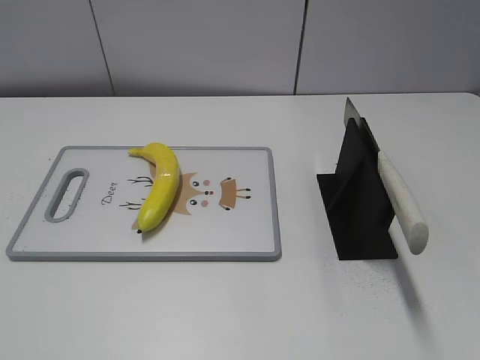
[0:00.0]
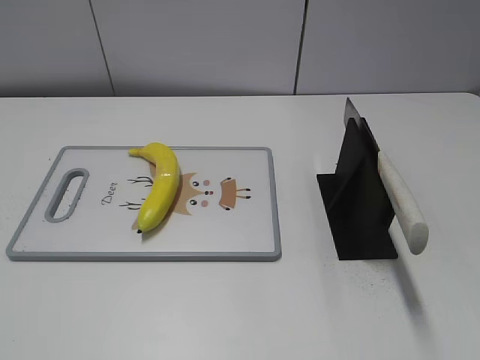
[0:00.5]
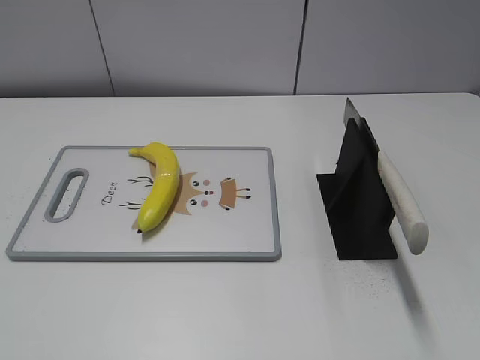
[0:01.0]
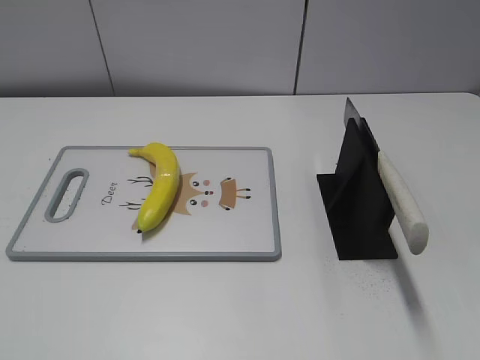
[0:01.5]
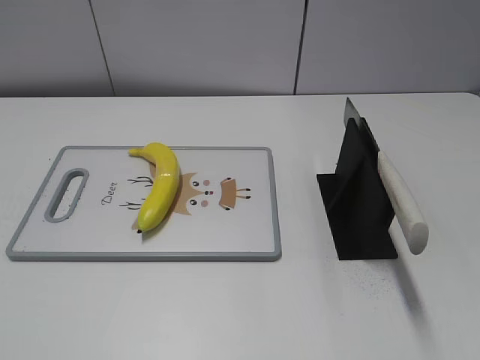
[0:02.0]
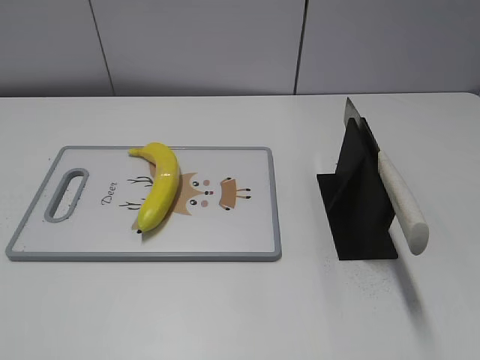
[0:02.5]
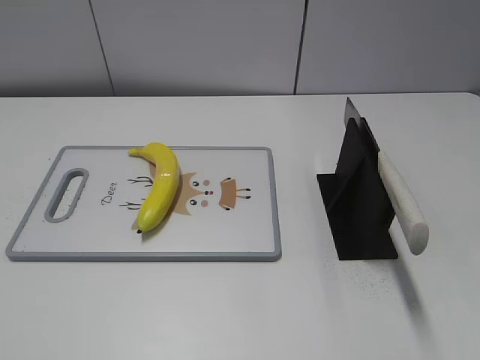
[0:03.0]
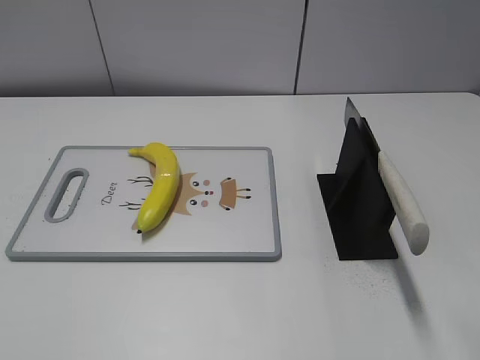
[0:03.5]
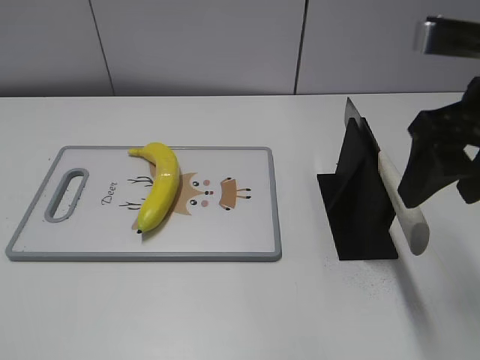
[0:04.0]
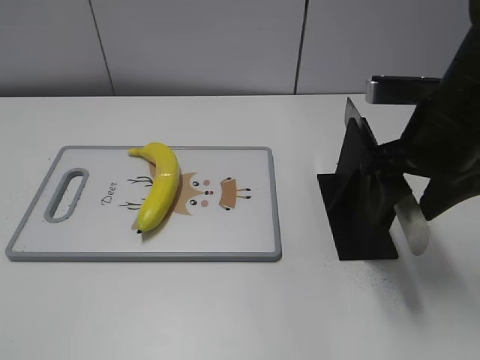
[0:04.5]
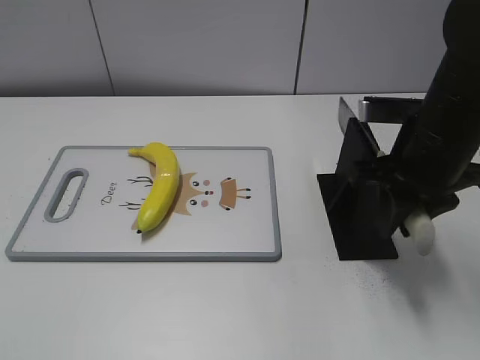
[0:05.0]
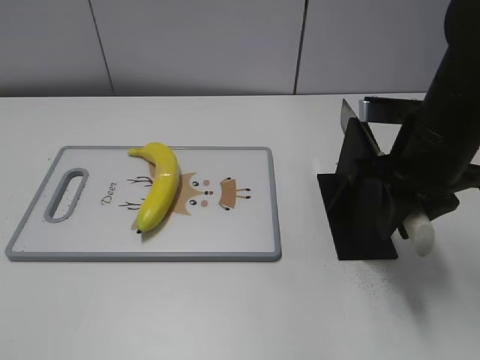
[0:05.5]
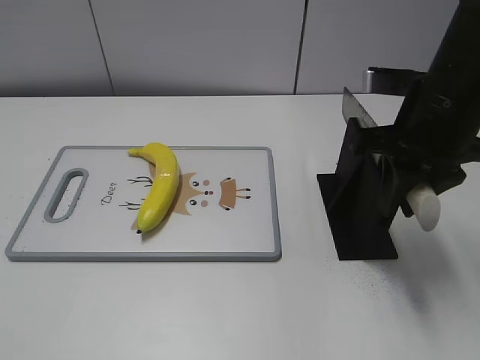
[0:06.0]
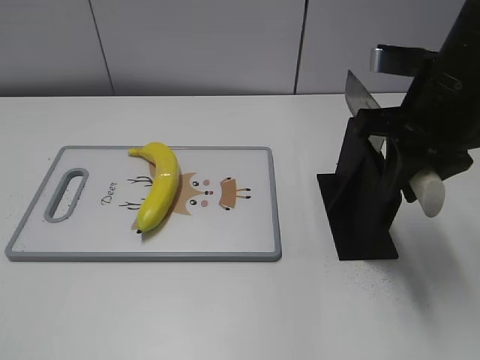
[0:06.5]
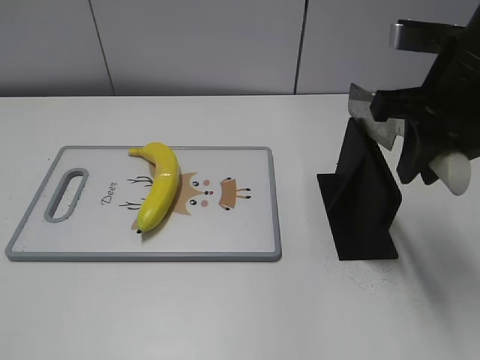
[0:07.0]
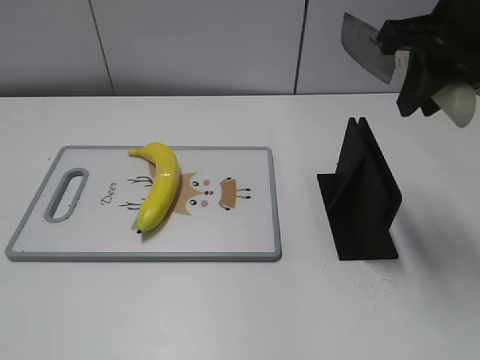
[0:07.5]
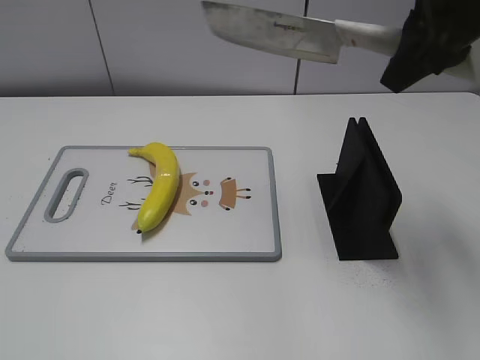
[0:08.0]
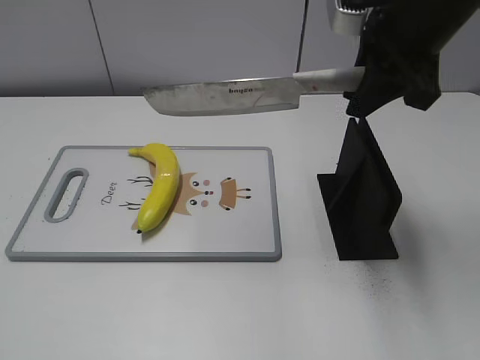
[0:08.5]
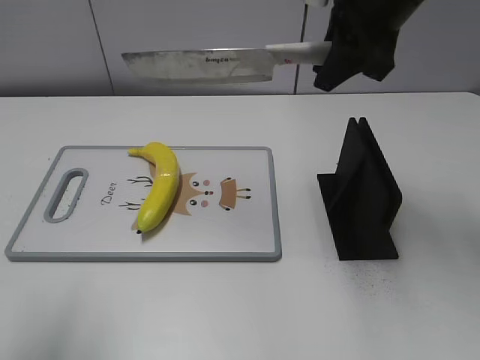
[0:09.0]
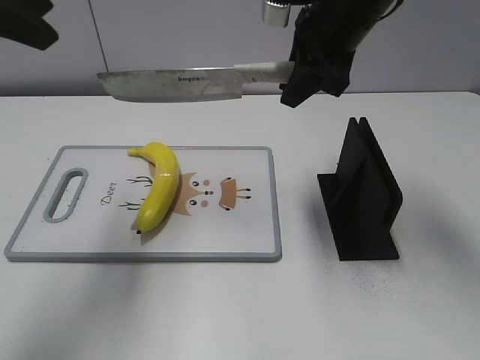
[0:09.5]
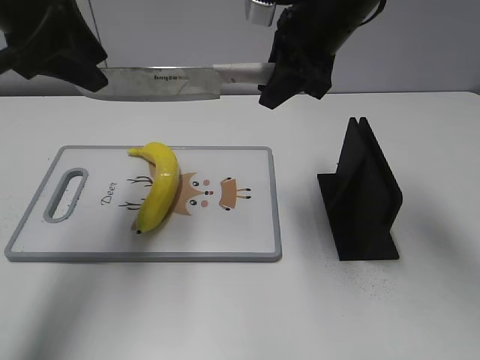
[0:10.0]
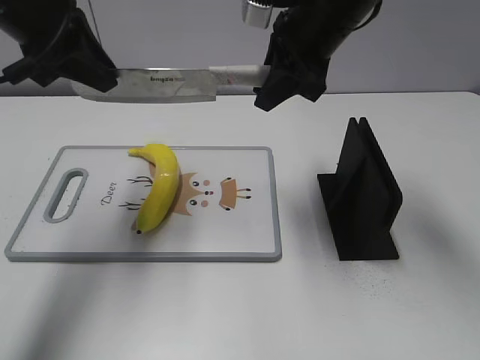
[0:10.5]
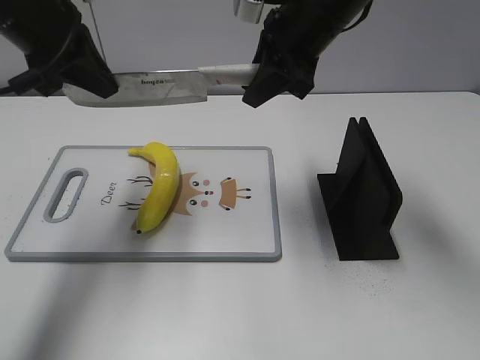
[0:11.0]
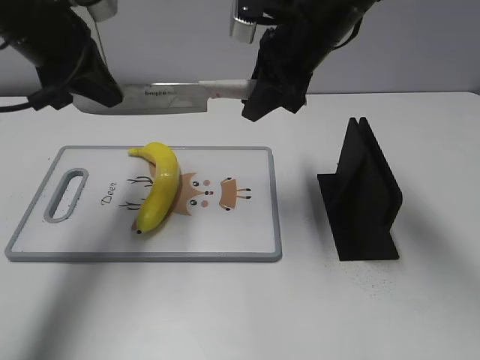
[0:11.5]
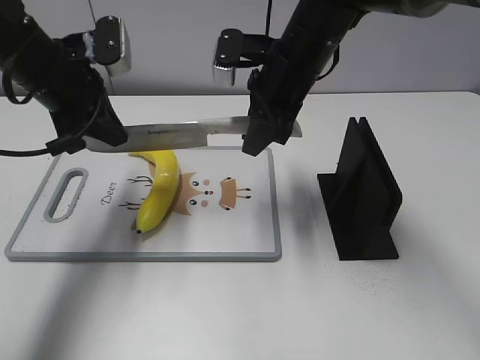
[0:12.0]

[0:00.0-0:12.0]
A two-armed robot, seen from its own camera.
Task of the whole recording: cut plastic banana.
Step, 0:00.0 to 0:06.0: Grab the knife handle with your right hand.
0:02.0 to 0:04.0: The right gripper is displaced forward by roughly 25 cm.
0:04.0 to 0:06.0: The right gripper goes roughly 10 cm downward and forward, and closes.
0:06.0 to 0:08.0: The right gripper goes some 10 cm upward.
0:08.0 to 0:10.0: The left gripper is displaced forward by about 35 cm, while the right gripper is displaced forward, to the left and downward by about 15 cm.
0:10.0 to 0:12.0: Both grippers move downward, roughly 10 cm. The left gripper closes its fingers.

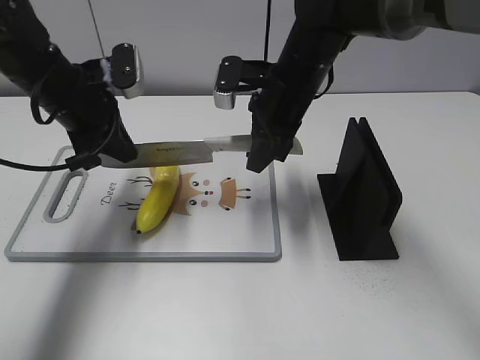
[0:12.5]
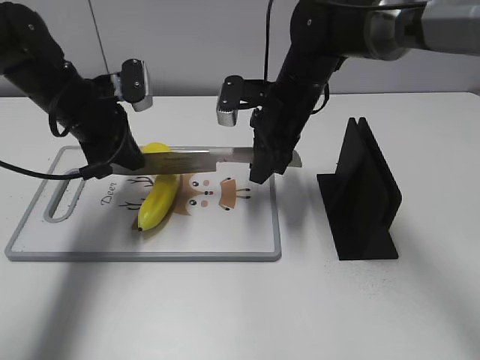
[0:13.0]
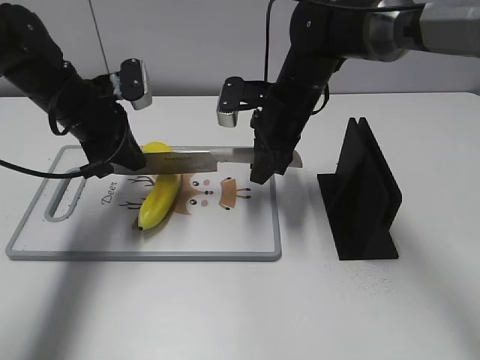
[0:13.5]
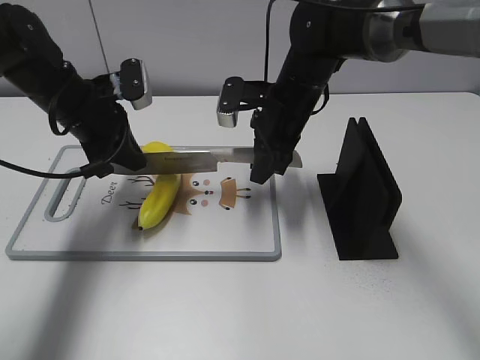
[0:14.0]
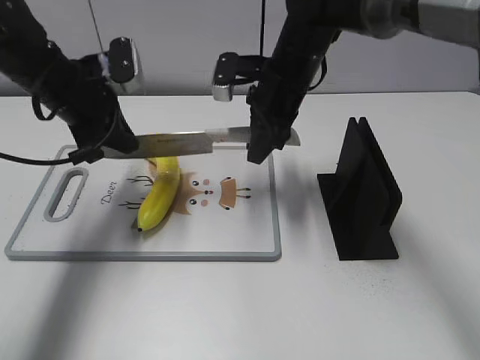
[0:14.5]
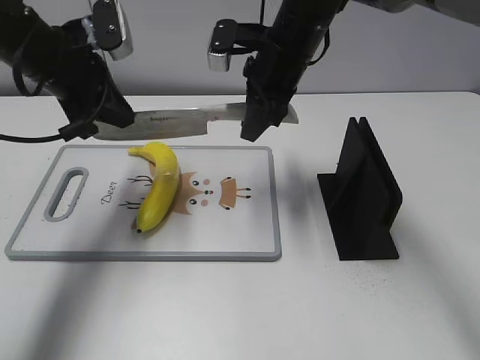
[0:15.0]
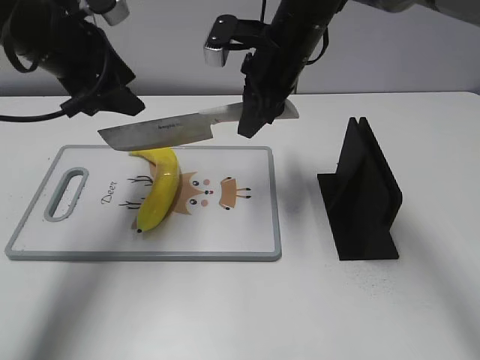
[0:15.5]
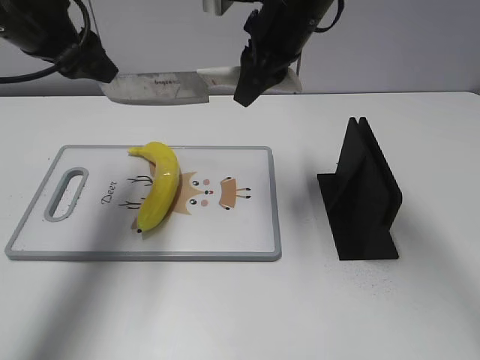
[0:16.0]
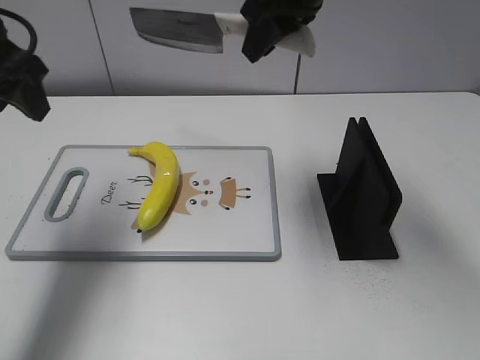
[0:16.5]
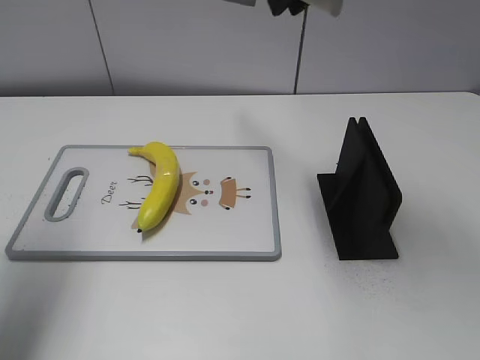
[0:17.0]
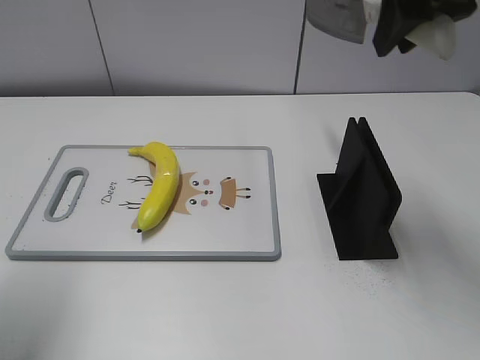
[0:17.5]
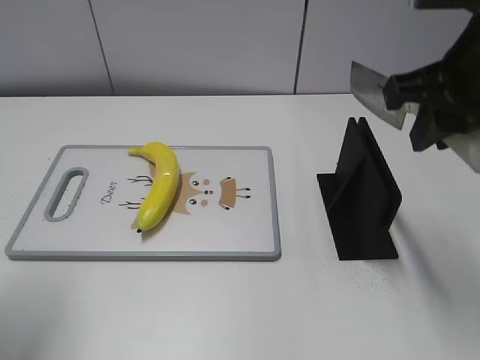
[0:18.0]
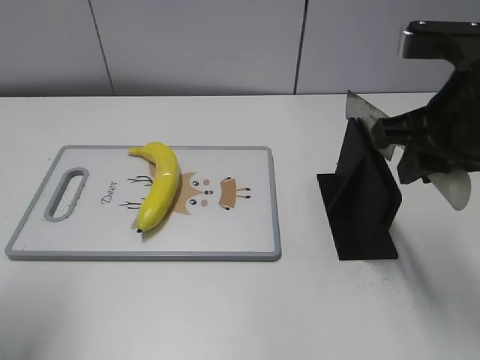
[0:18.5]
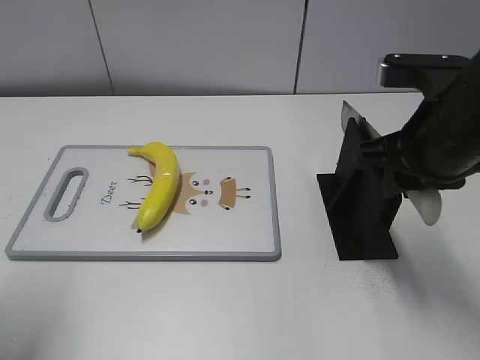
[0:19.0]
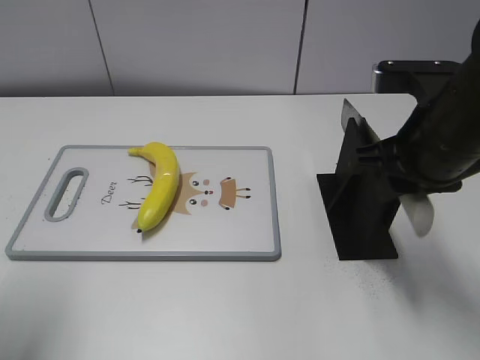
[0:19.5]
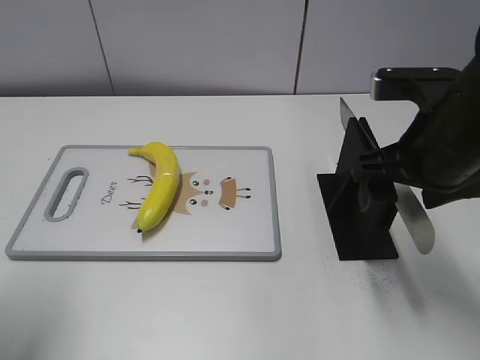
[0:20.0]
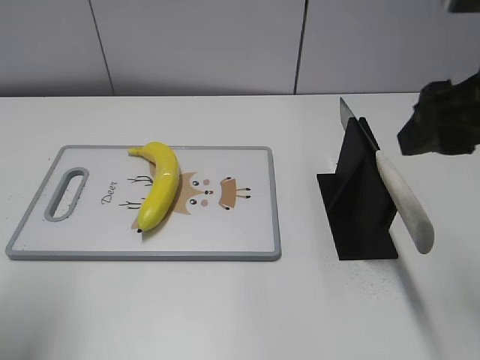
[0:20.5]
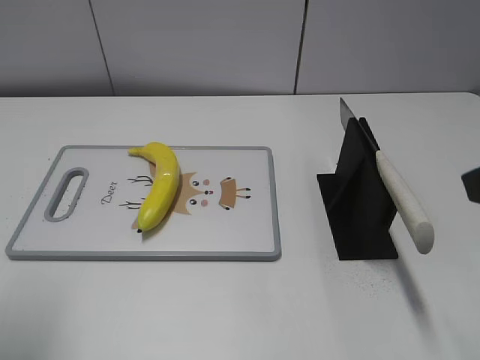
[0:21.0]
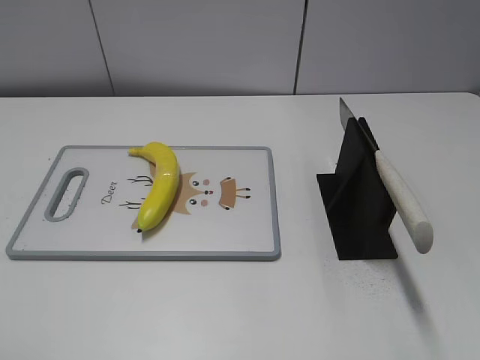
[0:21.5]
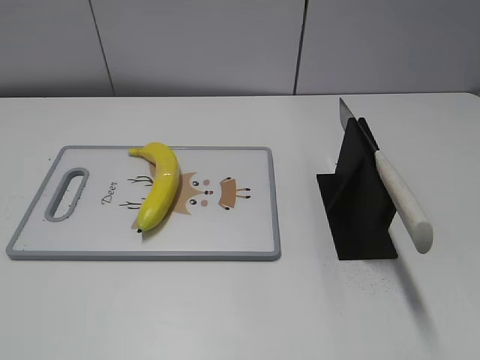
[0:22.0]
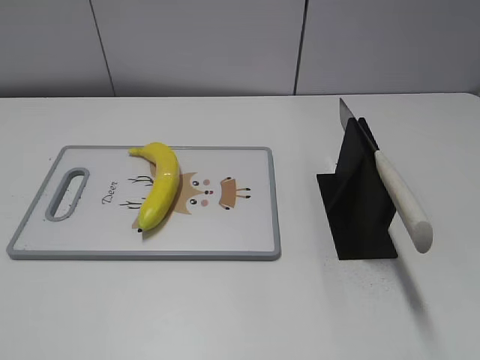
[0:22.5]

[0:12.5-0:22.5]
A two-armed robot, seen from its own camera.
Task of the whole recording: cut plastic banana.
Step, 0:13.5 to 0:16.0: Cut the banana with your right hand.
Step, 0:16.5 to 0:18.5: Lift the knife with your right hand.
0:12.5 to 0:14.5: The grippers stay close to where they were, moving slightly.
0:14.5 to 0:16.5: The left gripper moves upward, backward and to the left, about 15 cm, and opens up. Meanwhile the right gripper goes roughly 15 cm upward.
0:16.5 to 0:18.5: The right gripper heads backward and to the right, covering about 20 cm. The left gripper moves backward, roughly 15 cm.
0:18.5 to 0:20.5: The right gripper ends up roughly 5 cm from where it was, and opens.
0:20.5 to 0:22.5: The right gripper moves backward and to the right, some 20 cm. The left gripper shifts some 20 cm backward.

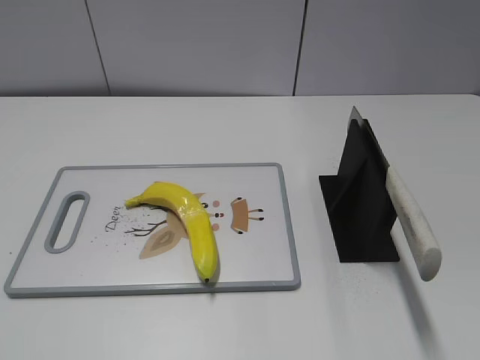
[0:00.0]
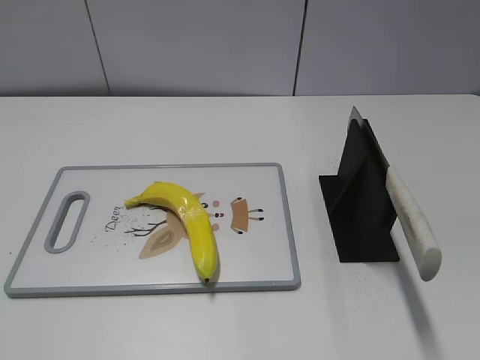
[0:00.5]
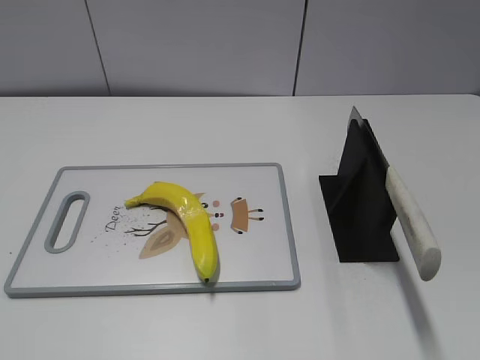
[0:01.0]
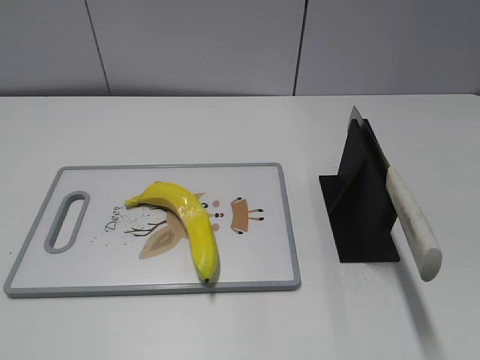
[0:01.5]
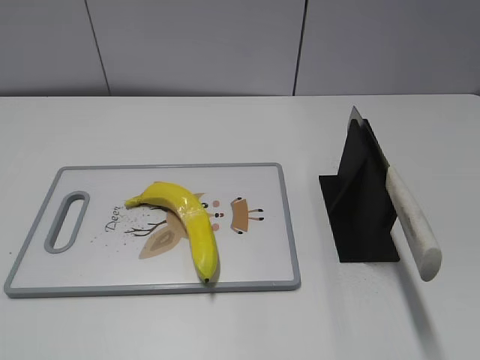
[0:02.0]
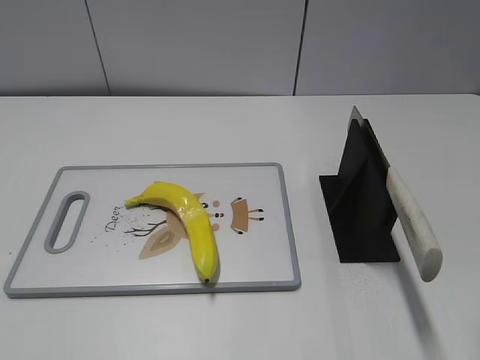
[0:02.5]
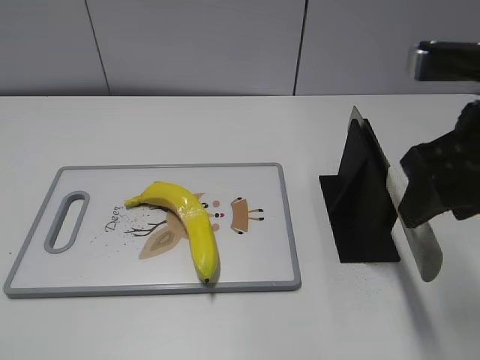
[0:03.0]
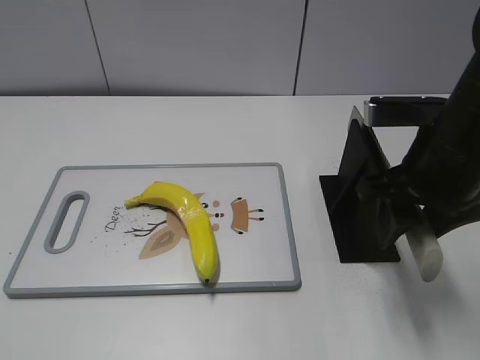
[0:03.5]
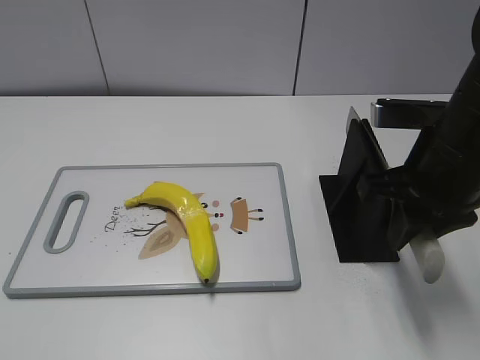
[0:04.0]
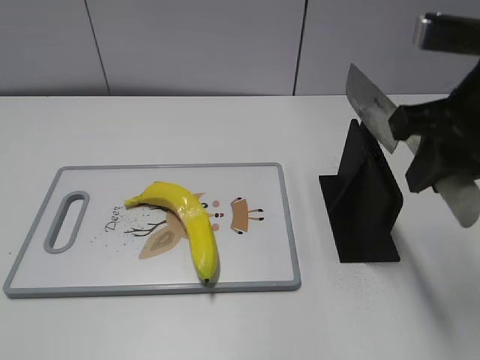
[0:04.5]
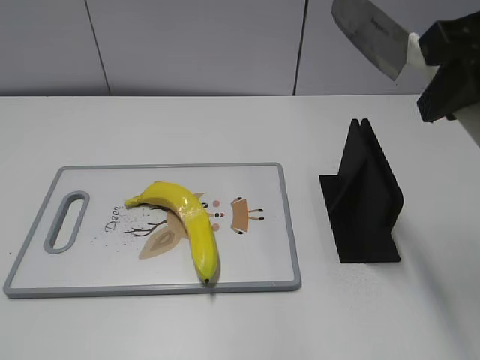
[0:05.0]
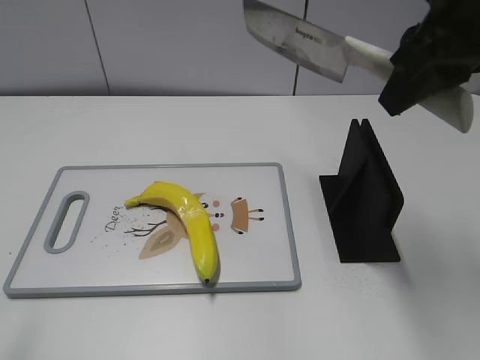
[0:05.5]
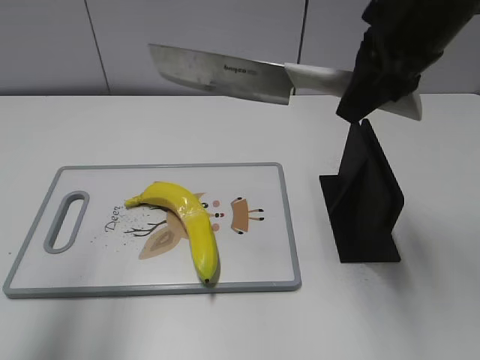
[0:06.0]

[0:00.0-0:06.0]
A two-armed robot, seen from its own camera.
Task of the whole recording: cut plastic banana.
Step, 0:00.0 to 0:04.5: Grab the knife handle with your right hand.
0:02.0 to 0:04.0: The right gripper heads forward, to the left and downward, covering roughly 25 cm, and closes.
0:04.0 to 0:06.0: The left gripper heads forward and upward, covering roughly 20 cm. The right gripper goes roughly 10 cm upward and forward.
